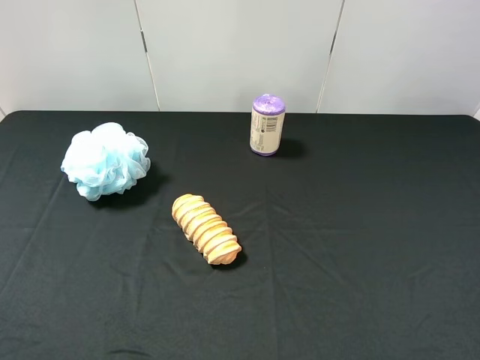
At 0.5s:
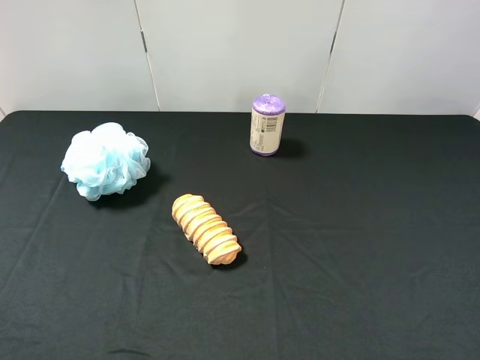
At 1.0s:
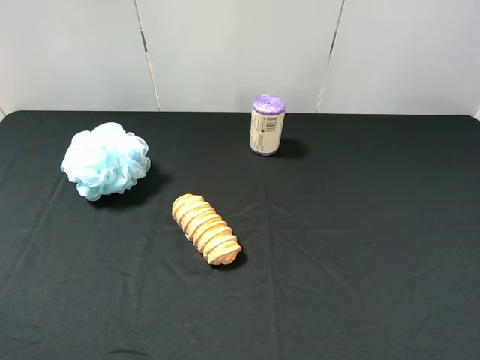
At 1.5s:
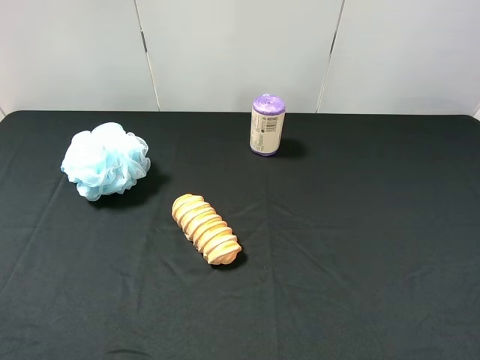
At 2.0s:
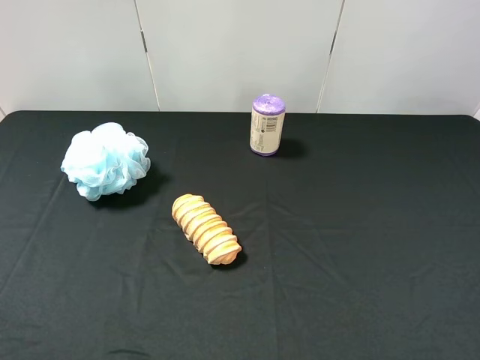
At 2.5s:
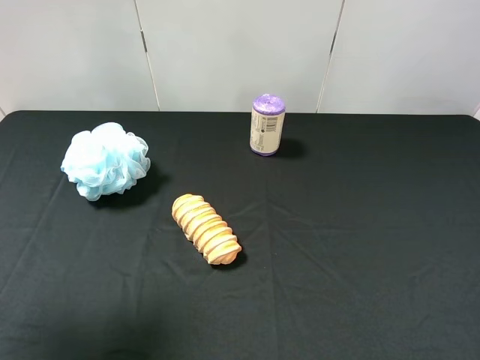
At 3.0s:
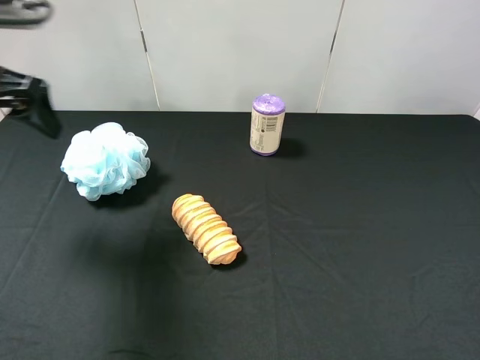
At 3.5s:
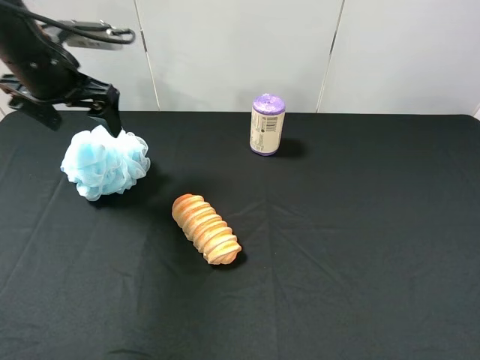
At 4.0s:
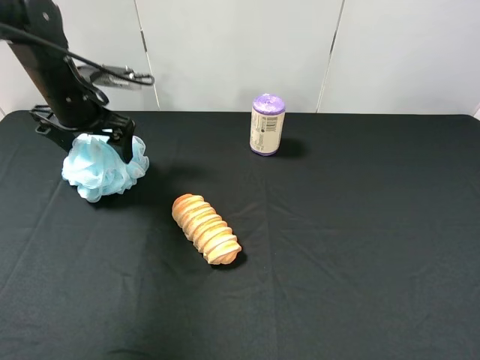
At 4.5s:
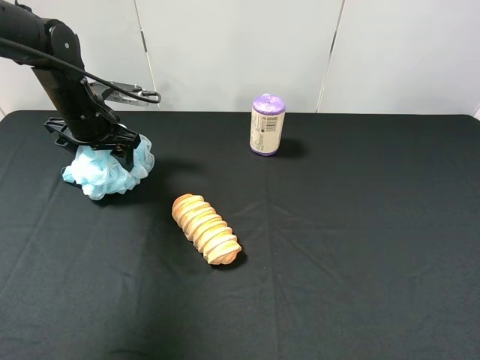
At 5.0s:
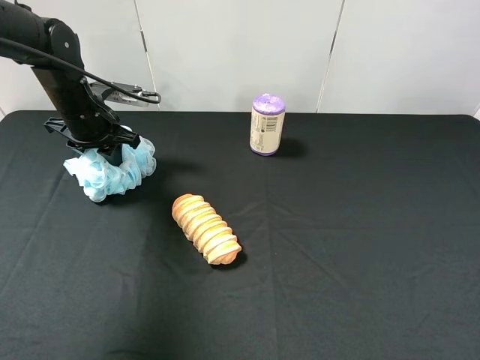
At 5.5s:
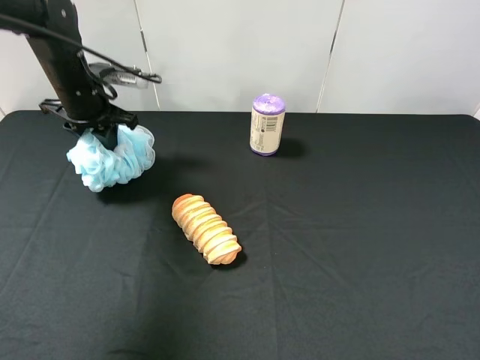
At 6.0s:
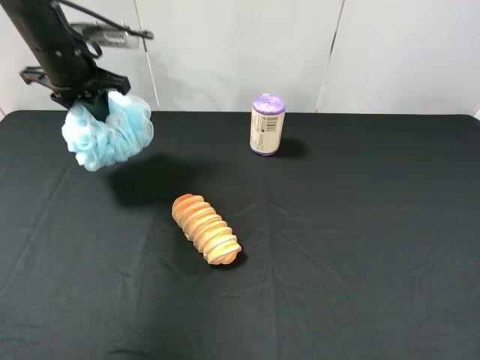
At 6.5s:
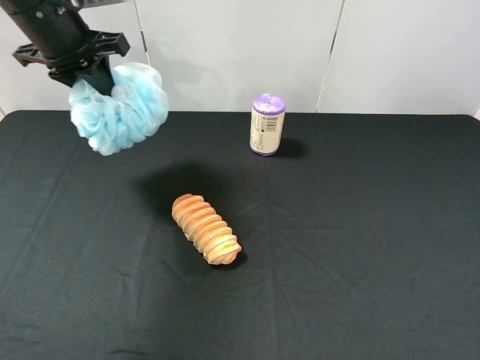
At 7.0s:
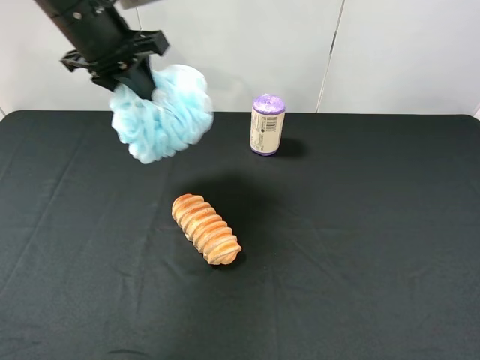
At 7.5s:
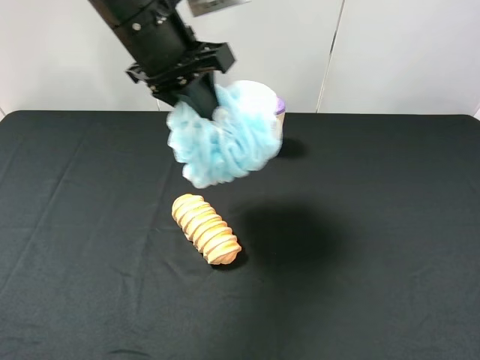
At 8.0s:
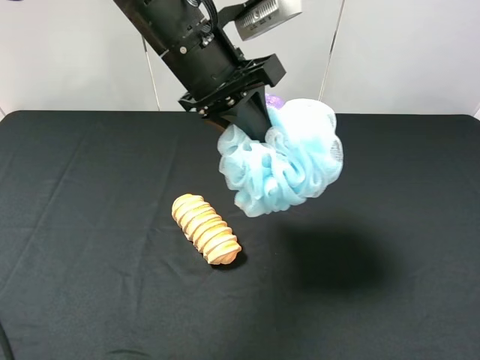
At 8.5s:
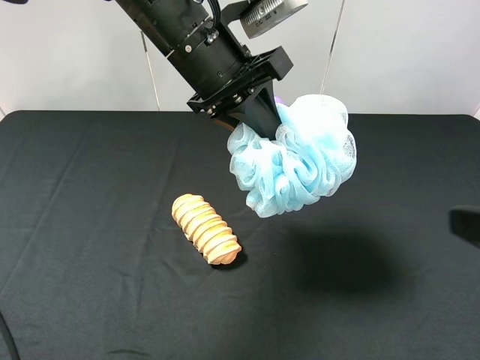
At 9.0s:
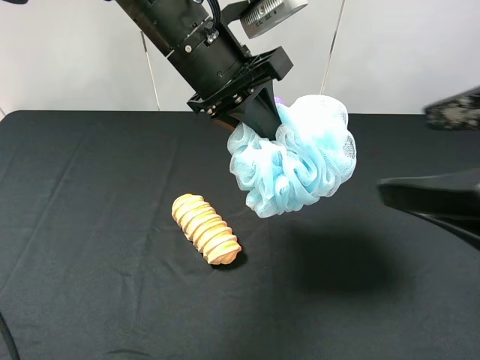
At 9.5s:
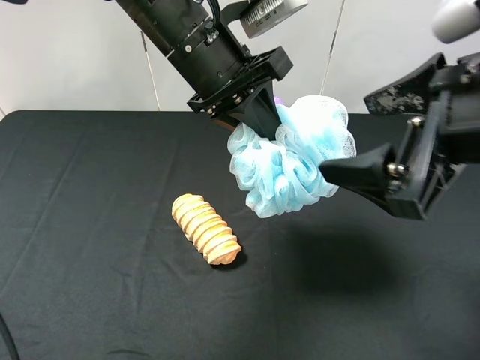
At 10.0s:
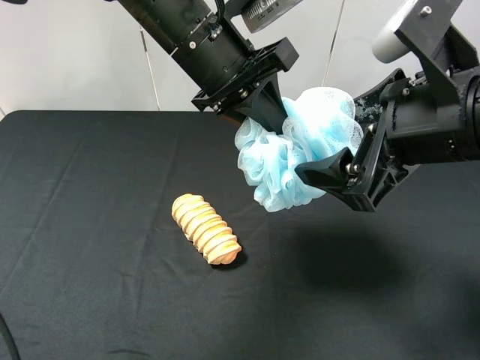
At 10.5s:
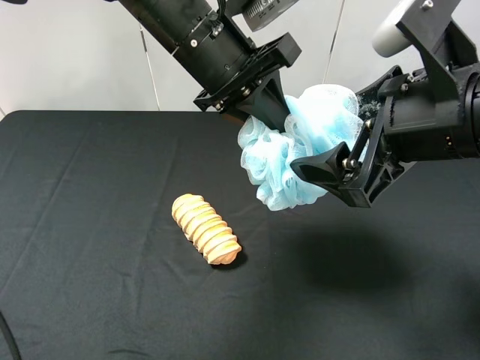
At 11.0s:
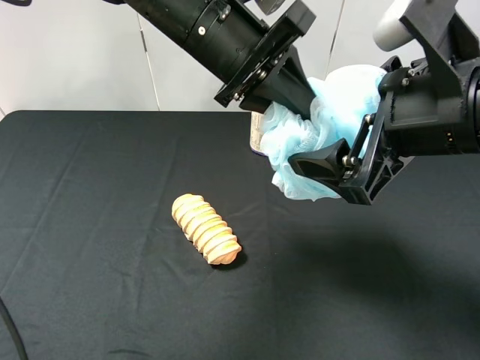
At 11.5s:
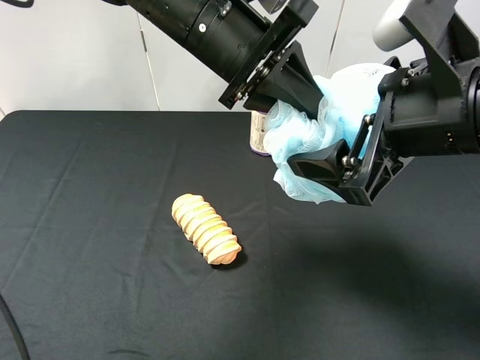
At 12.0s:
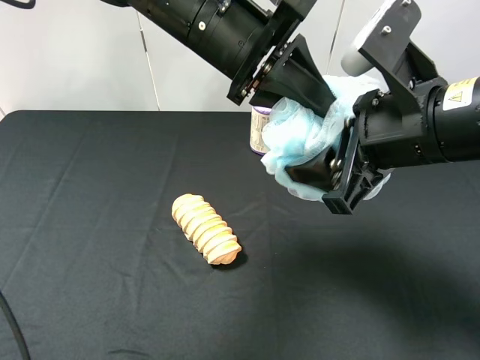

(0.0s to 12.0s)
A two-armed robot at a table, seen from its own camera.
Task of the whole recording: use the left gripper to pick up the item and transfer it from the left gripper to the right gripper.
2.0s - 4.0s: The left gripper moves forward and downward, about 40 cm.
4.0s - 6.0s: The left gripper moves upward, approximately 5 cm, and closes.
6.0s - 8.0s: The left gripper is displaced to the right and backward by roughly 20 cm.
8.0s - 10.0s: The right gripper goes approximately 20 cm forward and to the left.
10.0s - 12.0s: The right gripper closes.

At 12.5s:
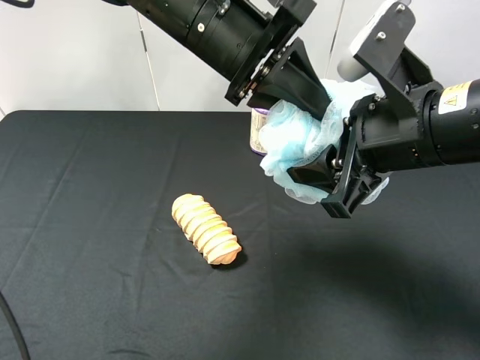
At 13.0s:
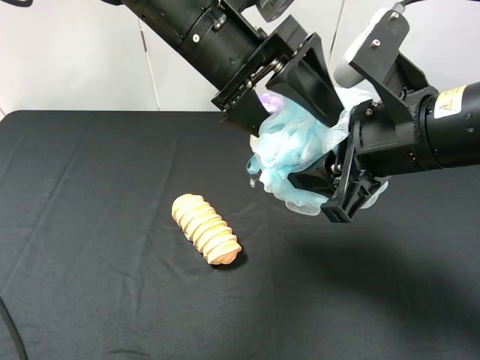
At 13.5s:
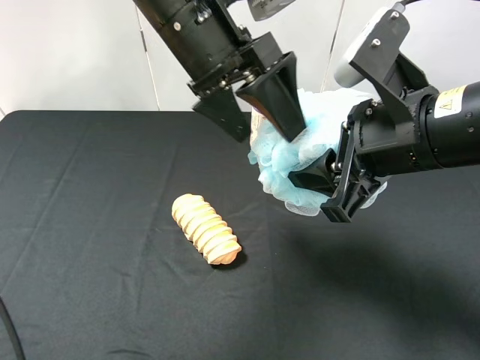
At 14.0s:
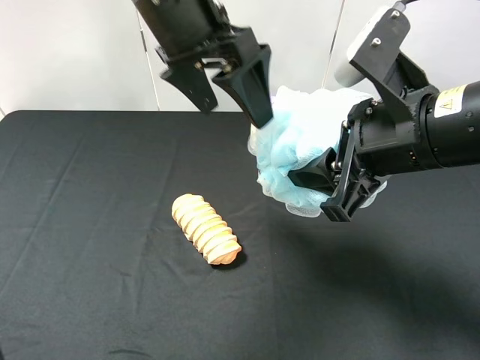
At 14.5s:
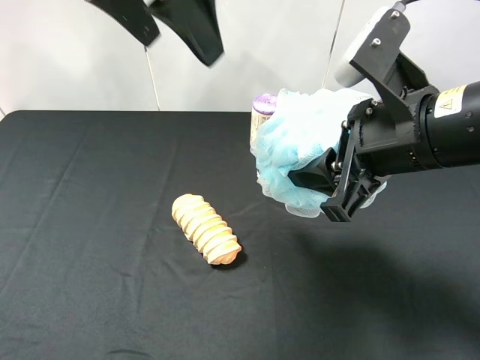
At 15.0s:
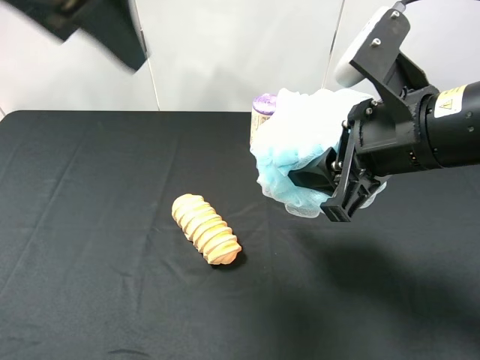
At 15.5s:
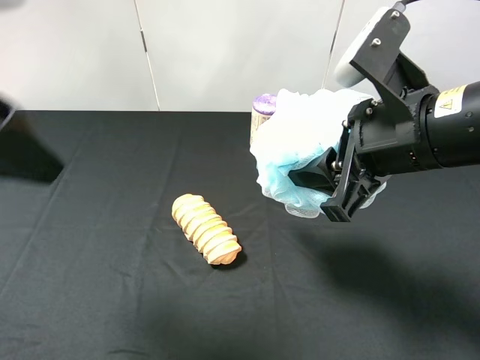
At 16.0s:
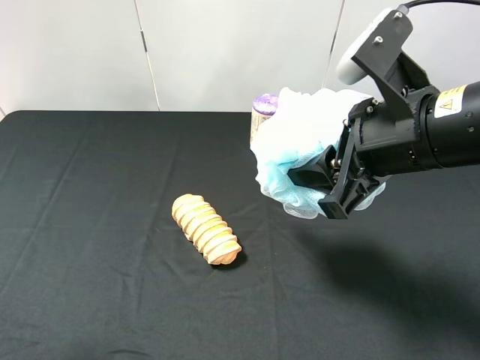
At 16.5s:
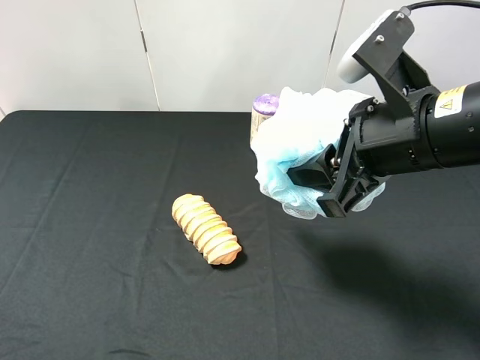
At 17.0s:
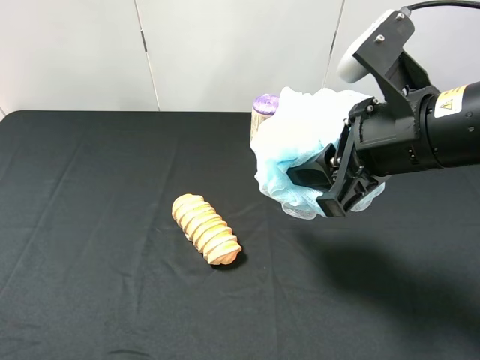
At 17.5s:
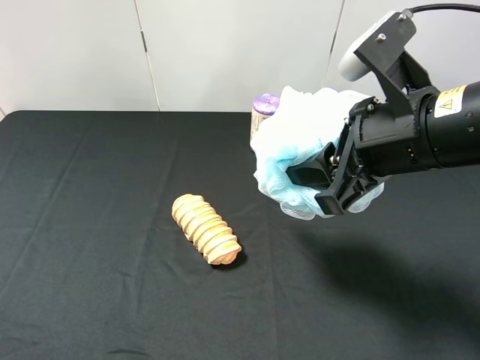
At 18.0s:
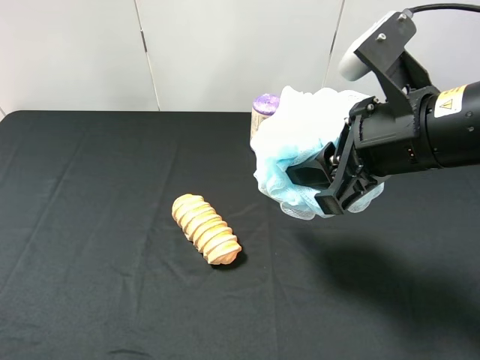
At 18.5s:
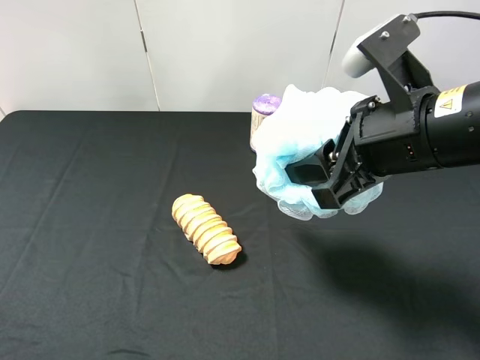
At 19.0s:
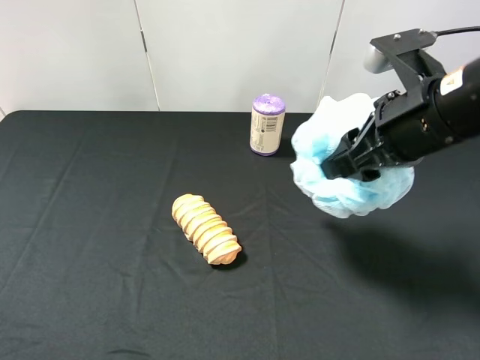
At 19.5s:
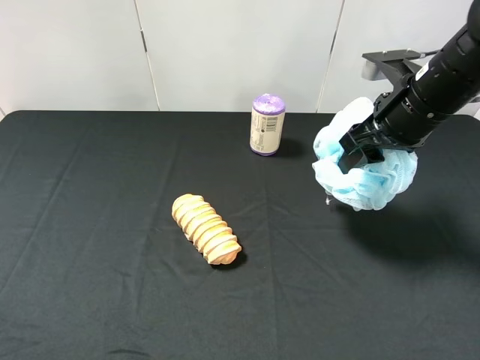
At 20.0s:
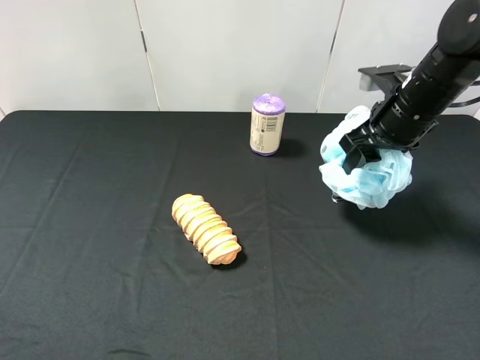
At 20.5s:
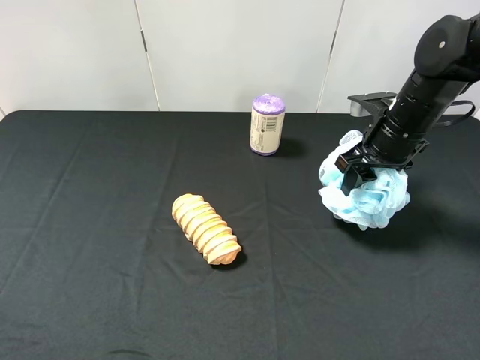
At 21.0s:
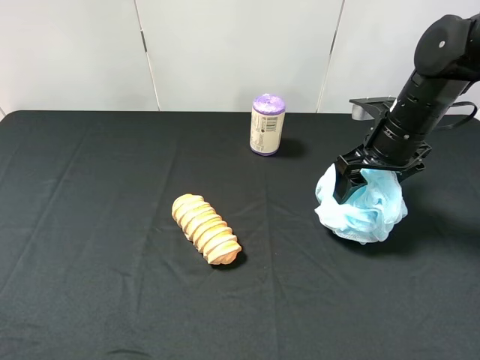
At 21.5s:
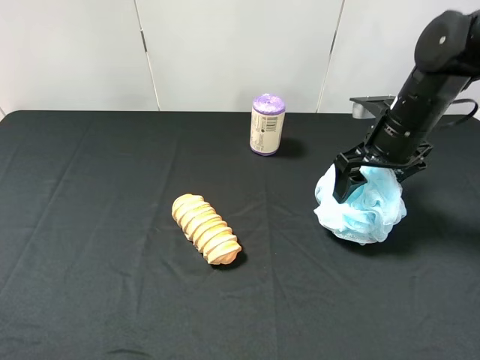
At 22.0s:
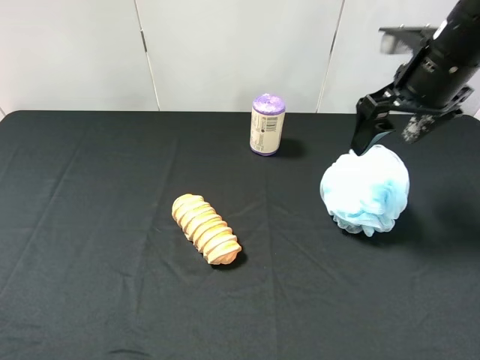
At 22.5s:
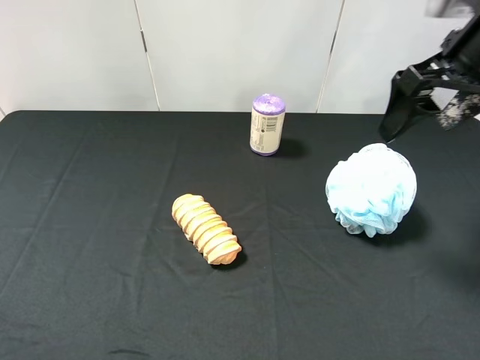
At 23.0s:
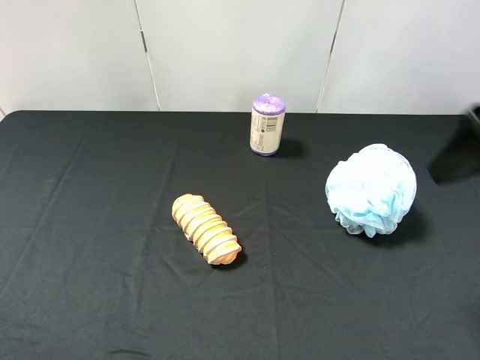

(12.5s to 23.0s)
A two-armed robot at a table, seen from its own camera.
Task of the whole recording: use the left gripper to pick up the item and transfer it from the left gripper to the right gripper.
12.5s - 14.5s: The left gripper moves upward and to the left, about 15 cm, and opens up.
14.5s - 16.5s: The left gripper goes approximately 35 cm backward, to the left and downward.
16.5s - 19.0s: The right gripper ends up some 5 cm from where it was.
19.0s - 21.0s: The right gripper travels forward and downward by some 15 cm, and opens up.
21.0s - 23.0s: The right gripper is displaced backward and upward by roughly 20 cm.

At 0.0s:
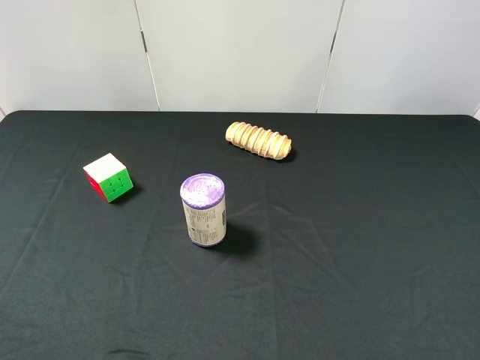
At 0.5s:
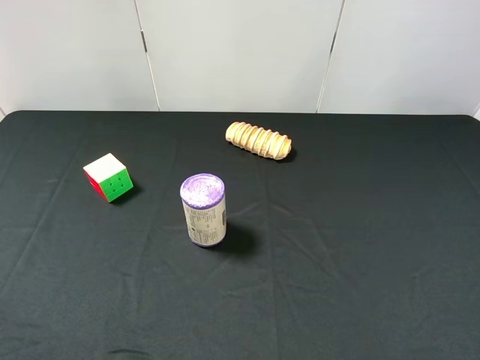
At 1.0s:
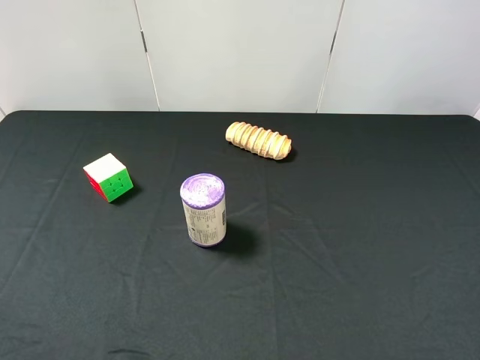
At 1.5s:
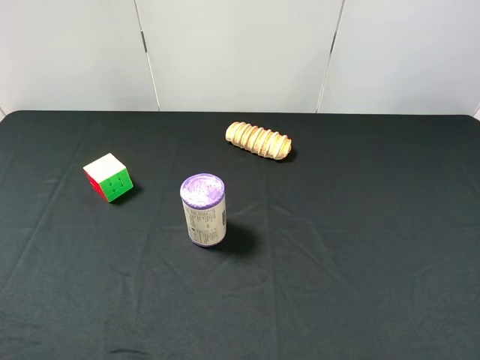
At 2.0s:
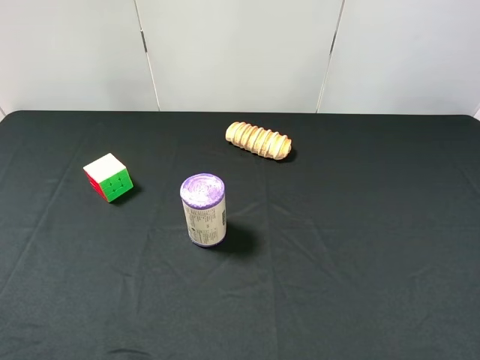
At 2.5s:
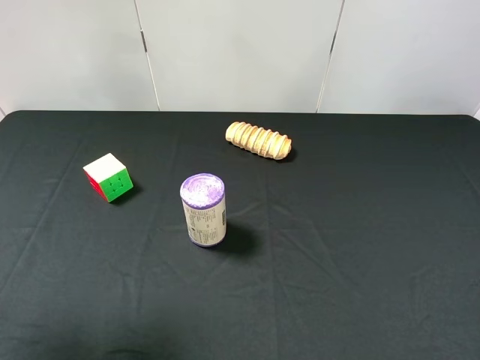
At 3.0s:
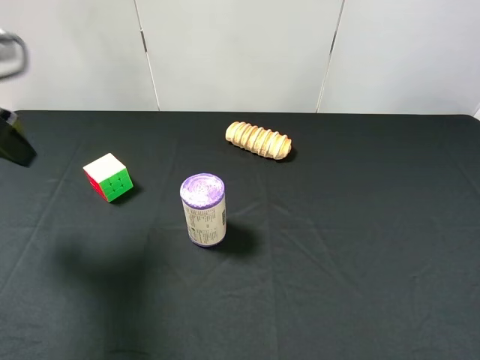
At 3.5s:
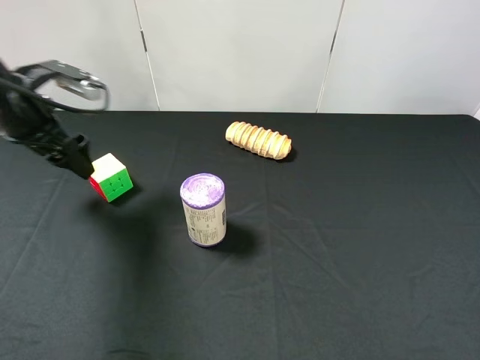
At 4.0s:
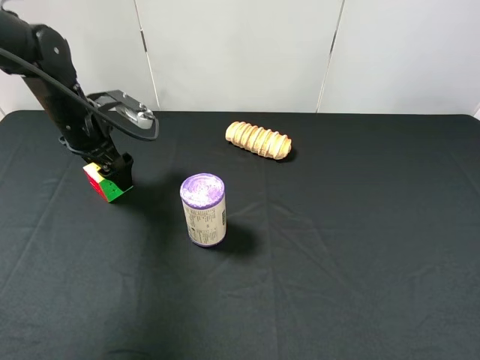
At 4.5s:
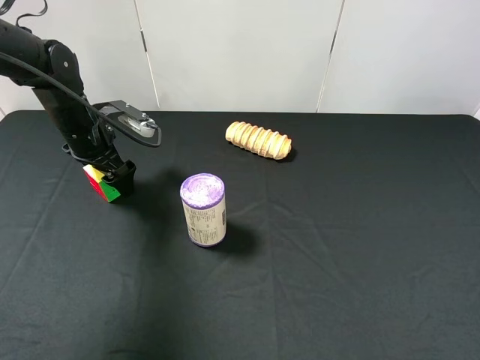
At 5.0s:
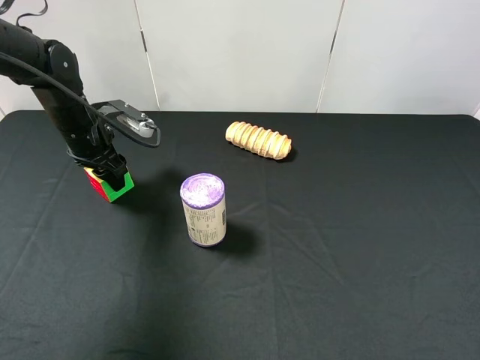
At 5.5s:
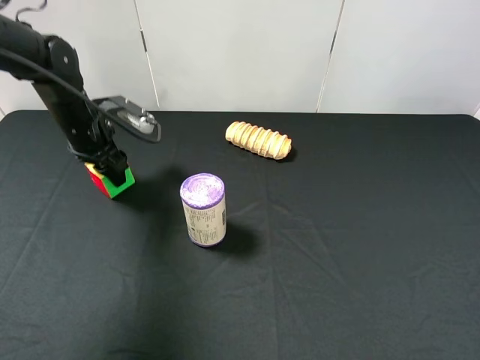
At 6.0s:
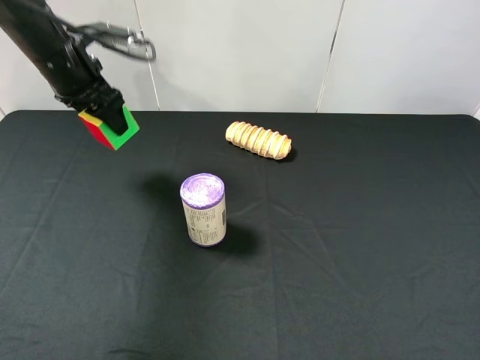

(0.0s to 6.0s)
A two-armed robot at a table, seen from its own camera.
Task of the whole recording: use the left gripper to pick up the item and transfer it from the left gripper to the right gripper.
2.0s - 4.0s: The left gripper shifts roughly 40 cm forward and downward.
4.0s - 6.0s: The left gripper heads upward, covering about 10 cm, and closes its fingers.
